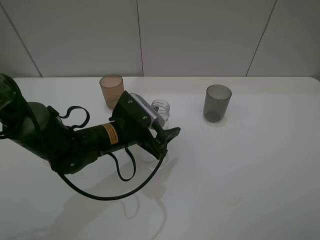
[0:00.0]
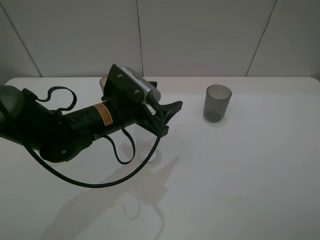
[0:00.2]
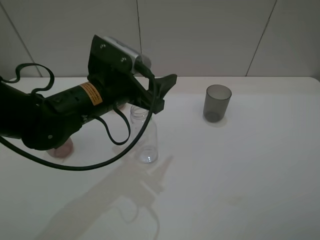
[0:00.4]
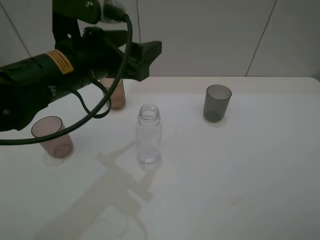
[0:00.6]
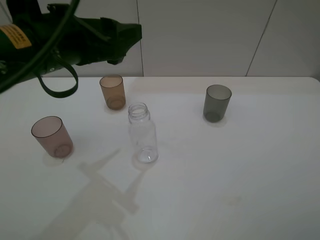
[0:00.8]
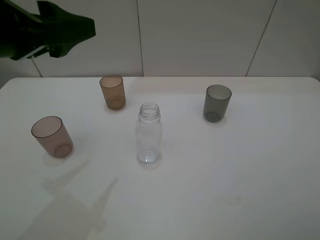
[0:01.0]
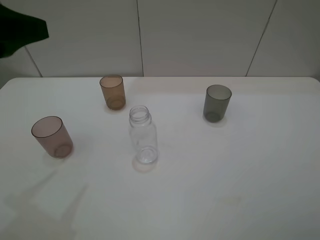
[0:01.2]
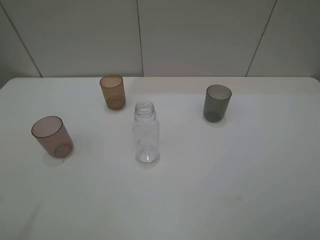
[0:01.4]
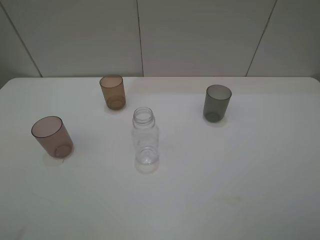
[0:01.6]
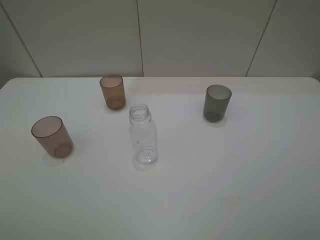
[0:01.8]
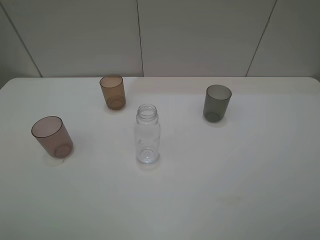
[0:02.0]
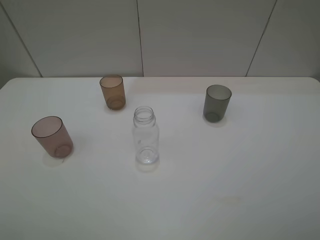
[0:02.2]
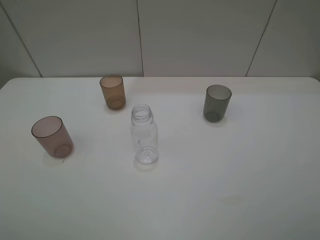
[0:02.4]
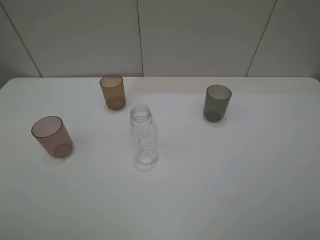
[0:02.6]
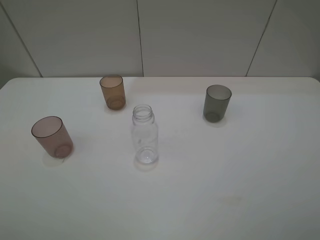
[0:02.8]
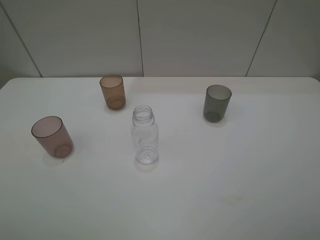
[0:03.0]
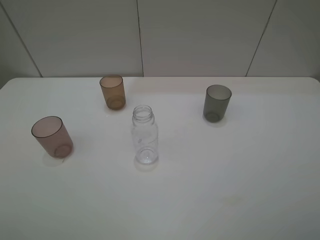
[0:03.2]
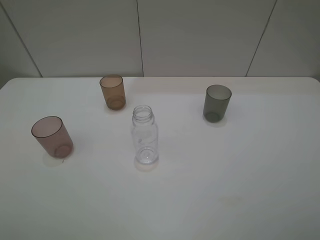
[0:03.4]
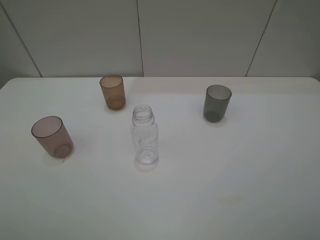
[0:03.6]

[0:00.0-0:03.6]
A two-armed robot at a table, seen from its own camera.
Task of the whole recording: pick up the bottle filled with water and pour water into the middle cup of the three cups.
0.0 to 1.8 s: The left gripper travels to the left, backward and upward by some 35 cm.

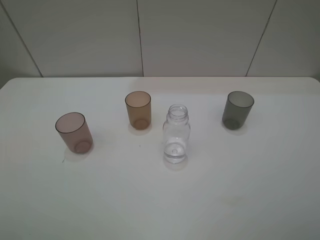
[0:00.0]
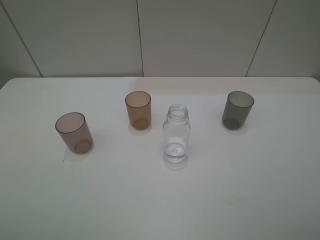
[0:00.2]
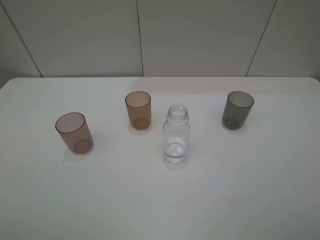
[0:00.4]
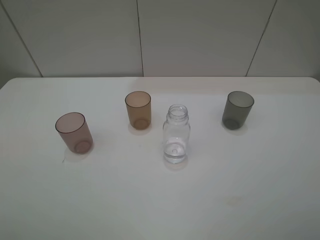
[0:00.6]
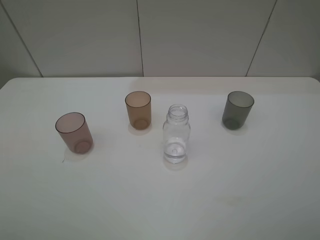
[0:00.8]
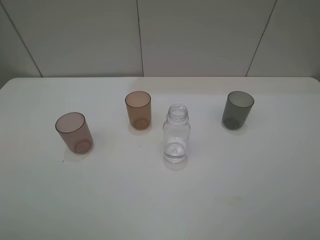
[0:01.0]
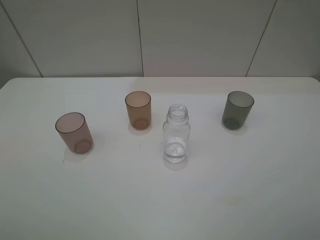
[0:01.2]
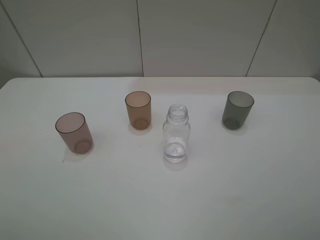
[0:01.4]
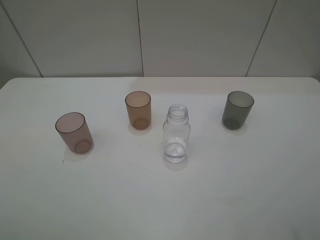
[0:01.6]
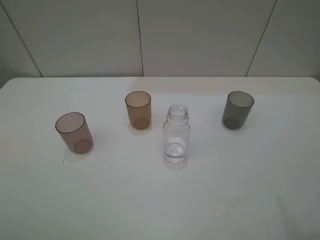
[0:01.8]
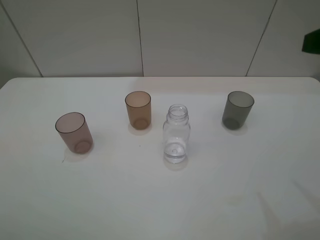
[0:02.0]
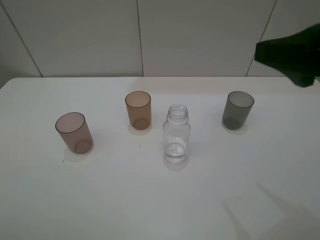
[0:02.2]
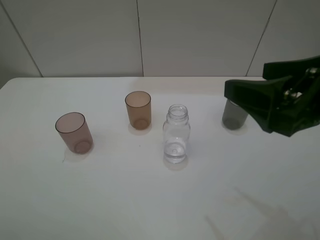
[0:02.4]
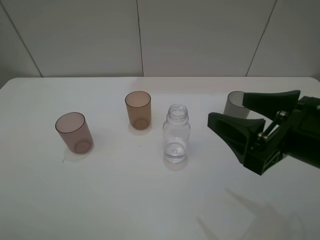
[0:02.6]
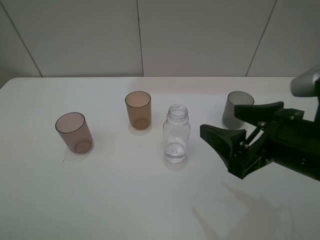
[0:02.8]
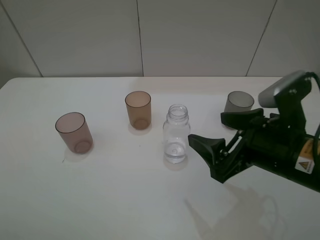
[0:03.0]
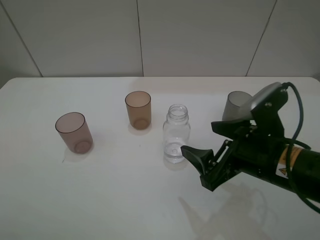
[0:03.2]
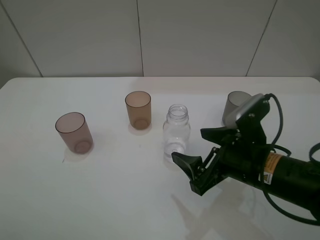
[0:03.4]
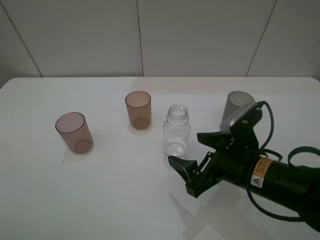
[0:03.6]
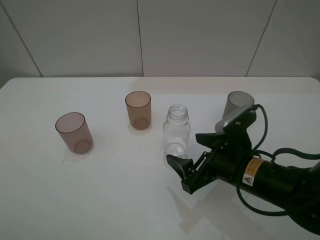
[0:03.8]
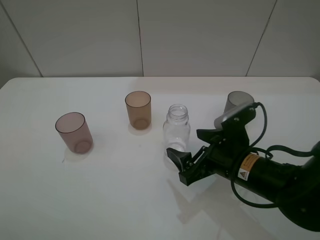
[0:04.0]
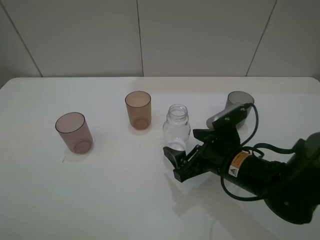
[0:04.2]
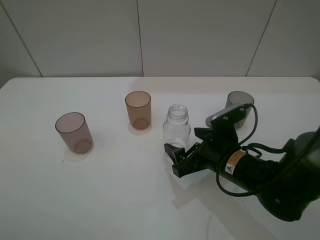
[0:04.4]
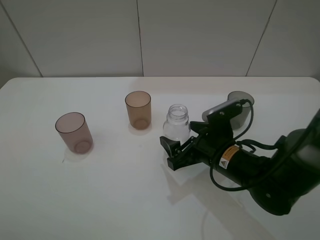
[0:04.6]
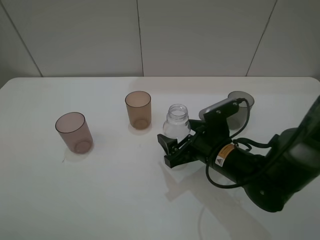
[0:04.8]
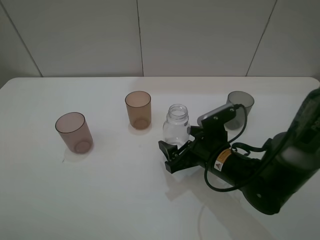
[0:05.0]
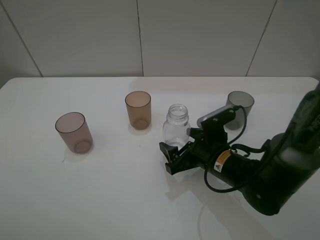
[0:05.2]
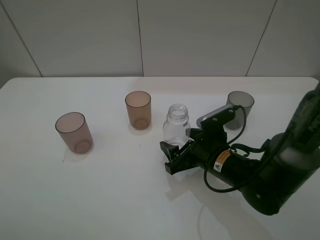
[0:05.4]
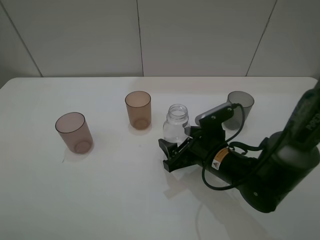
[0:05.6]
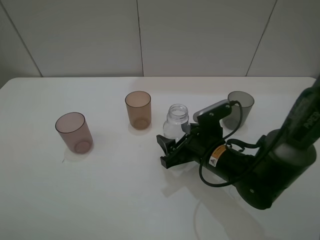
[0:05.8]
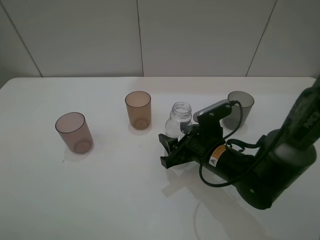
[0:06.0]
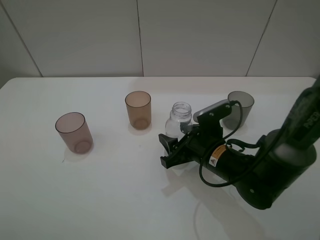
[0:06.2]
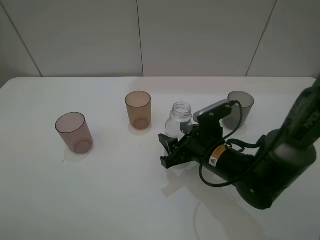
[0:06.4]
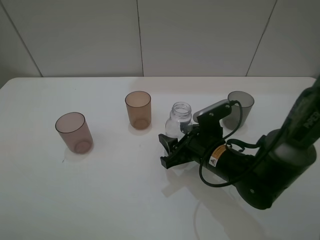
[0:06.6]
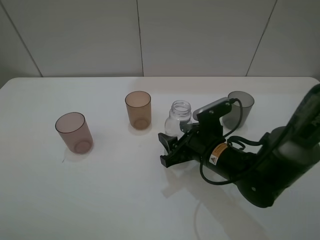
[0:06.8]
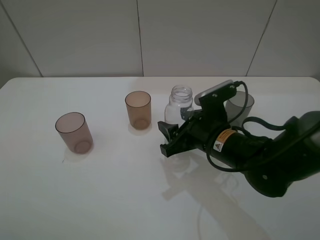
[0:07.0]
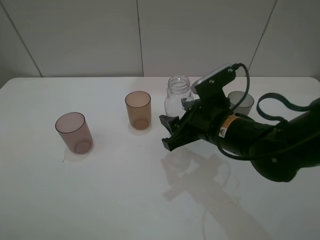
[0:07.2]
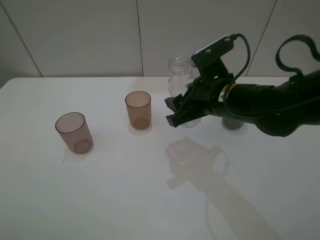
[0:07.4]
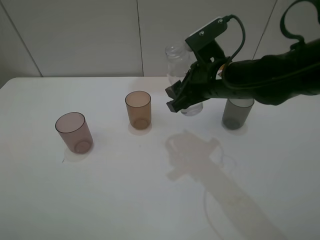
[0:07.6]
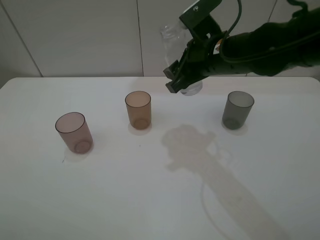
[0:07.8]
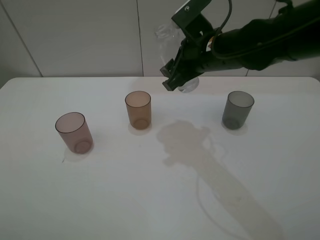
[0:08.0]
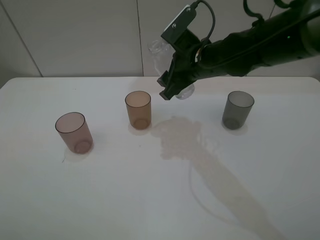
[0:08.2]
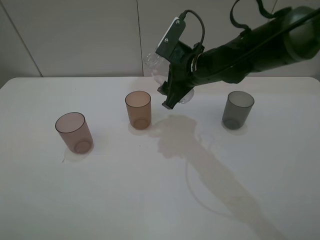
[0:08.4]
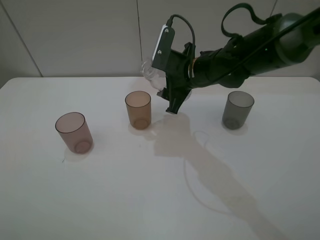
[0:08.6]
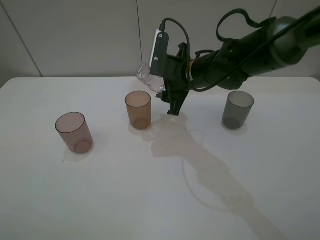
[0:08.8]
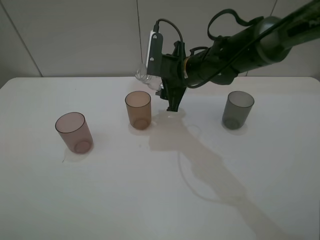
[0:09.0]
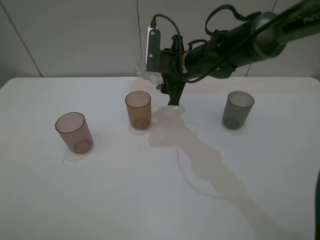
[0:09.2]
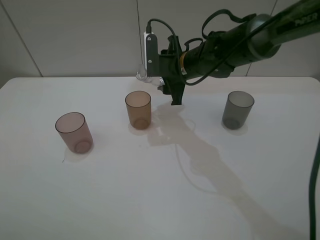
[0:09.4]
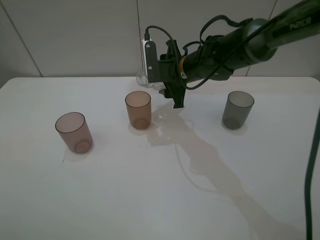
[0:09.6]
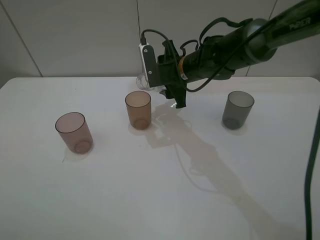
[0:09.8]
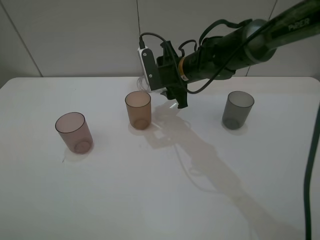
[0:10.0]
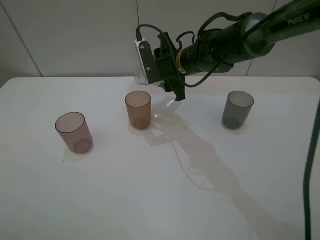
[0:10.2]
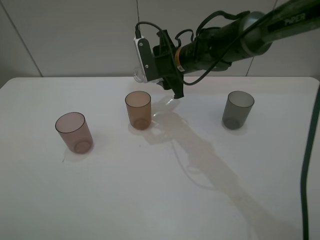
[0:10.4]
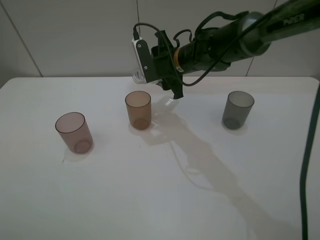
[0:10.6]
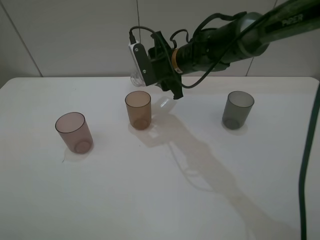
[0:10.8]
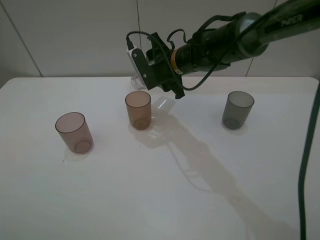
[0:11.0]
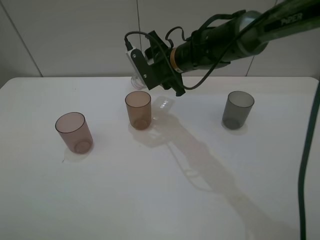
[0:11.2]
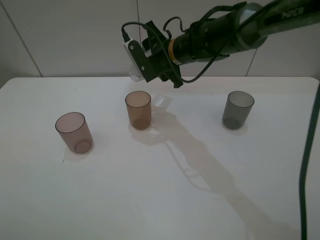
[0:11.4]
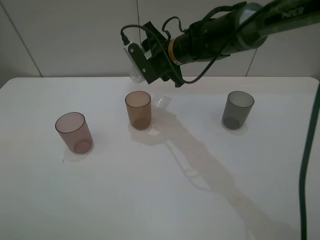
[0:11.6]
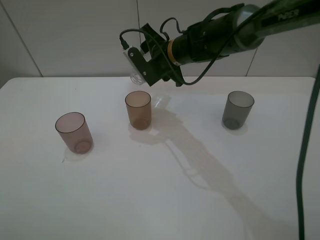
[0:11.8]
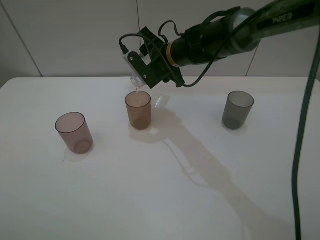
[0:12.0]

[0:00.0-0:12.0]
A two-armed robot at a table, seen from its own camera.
Task of the whole recording: pick up the bottle filled with water and pour water into the middle cup of the three cups.
Step, 0.0 to 6.0 s: Grasp the transparent bottle with the right gripper.
Step, 6.2 to 10.0 s: Pour water from transparent bottle tobrown cup with the right gripper.
1.6 to 3.0 s: The right gripper shifts approximately 20 cm downward, to the left and forward.
3.0 to 4.4 s: The right gripper heads downward and forward, covering some 10 cm.
4.4 to 6.0 s: The right gripper closes up.
6.0 to 7.6 s: The right gripper is displaced upward and forward by roughly 15 cm.
7.6 to 9.0 s: The right gripper shifts approximately 10 cm forward.

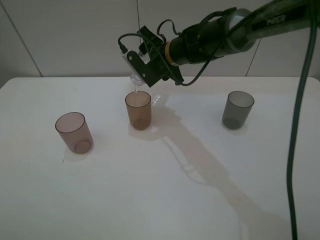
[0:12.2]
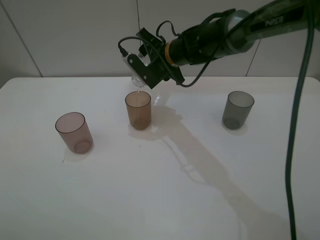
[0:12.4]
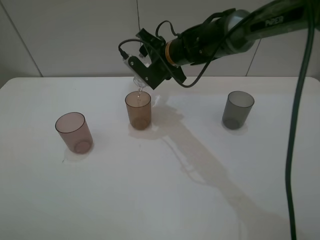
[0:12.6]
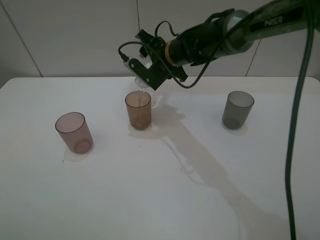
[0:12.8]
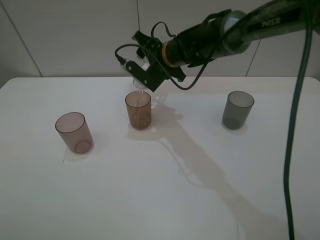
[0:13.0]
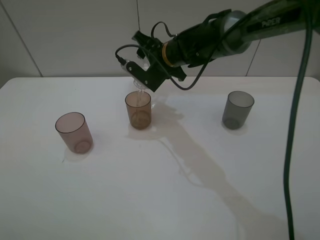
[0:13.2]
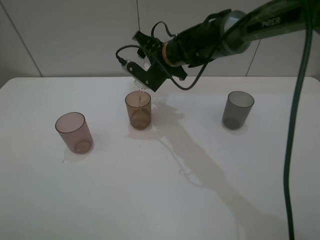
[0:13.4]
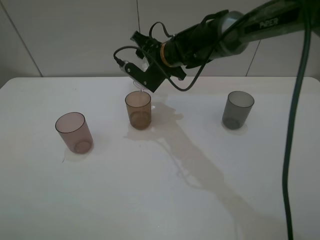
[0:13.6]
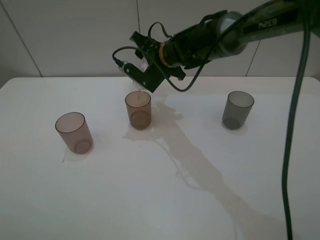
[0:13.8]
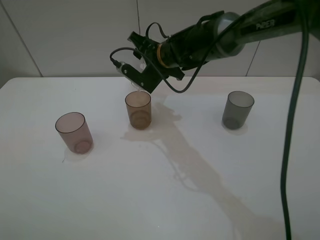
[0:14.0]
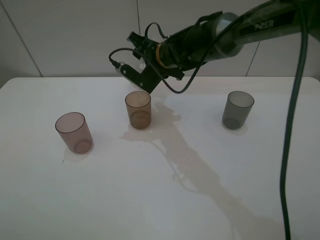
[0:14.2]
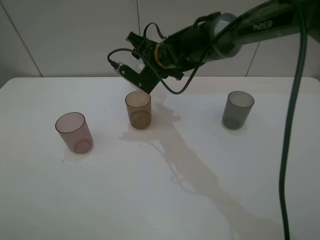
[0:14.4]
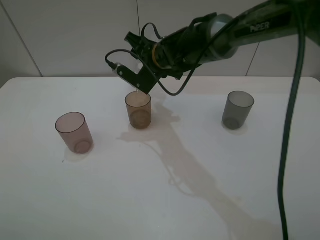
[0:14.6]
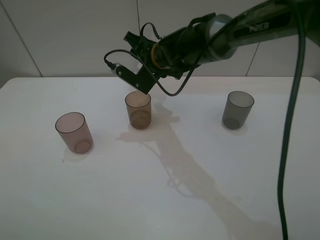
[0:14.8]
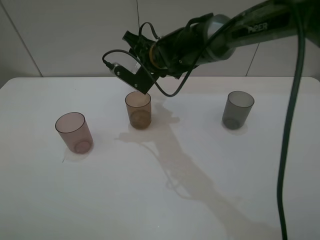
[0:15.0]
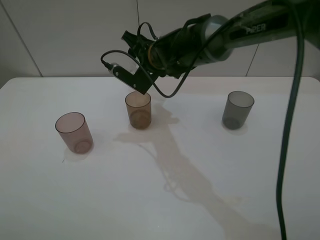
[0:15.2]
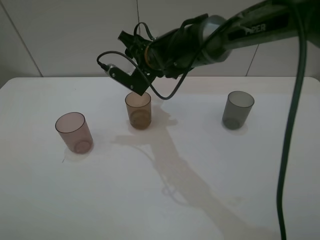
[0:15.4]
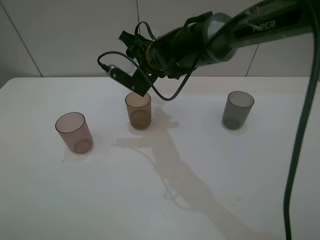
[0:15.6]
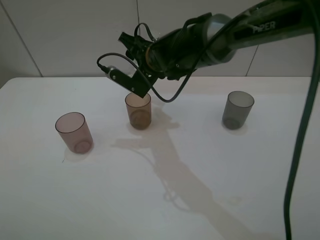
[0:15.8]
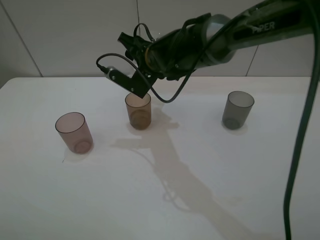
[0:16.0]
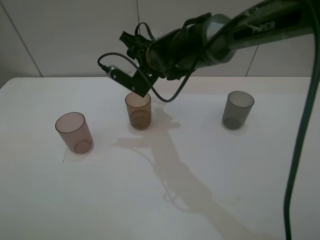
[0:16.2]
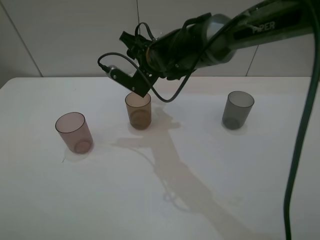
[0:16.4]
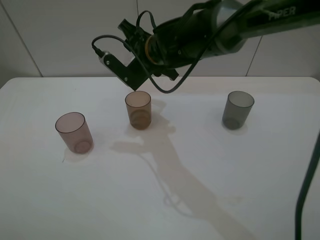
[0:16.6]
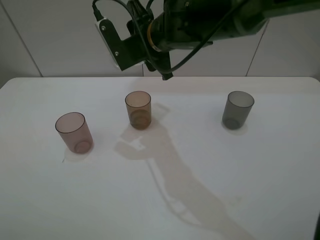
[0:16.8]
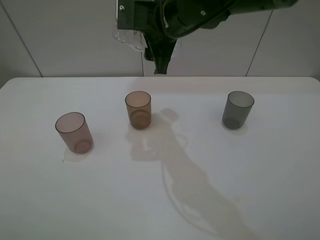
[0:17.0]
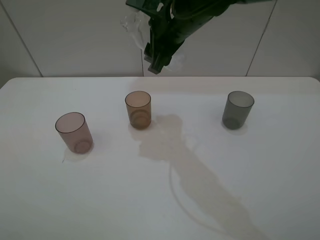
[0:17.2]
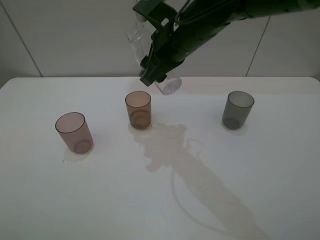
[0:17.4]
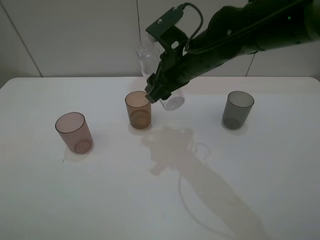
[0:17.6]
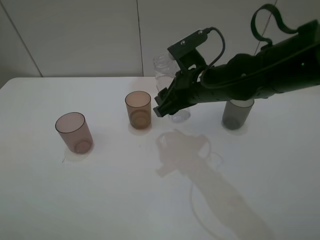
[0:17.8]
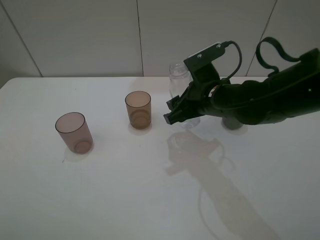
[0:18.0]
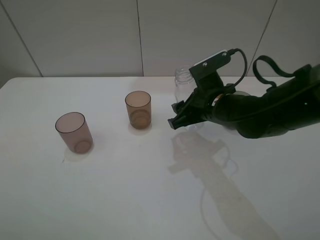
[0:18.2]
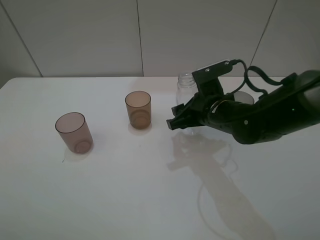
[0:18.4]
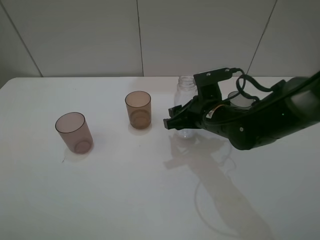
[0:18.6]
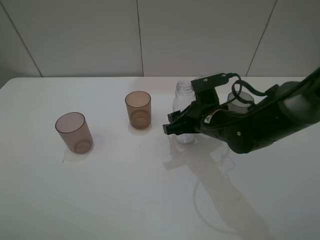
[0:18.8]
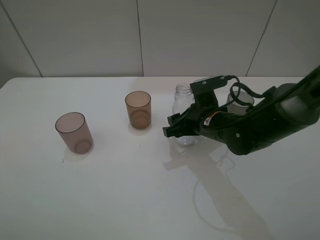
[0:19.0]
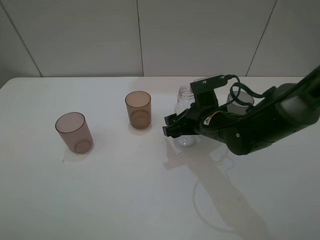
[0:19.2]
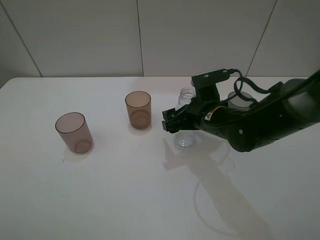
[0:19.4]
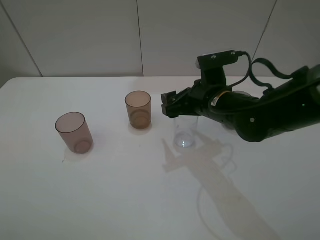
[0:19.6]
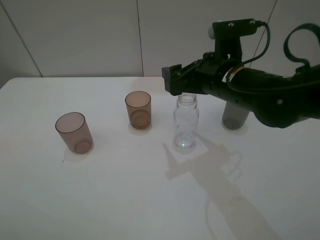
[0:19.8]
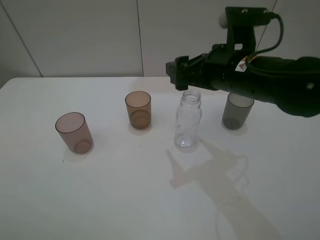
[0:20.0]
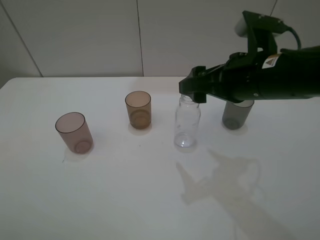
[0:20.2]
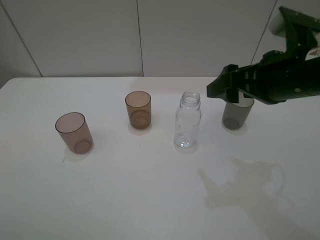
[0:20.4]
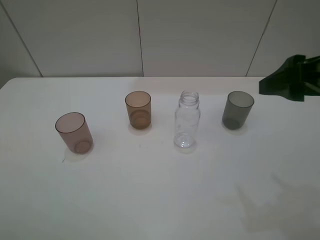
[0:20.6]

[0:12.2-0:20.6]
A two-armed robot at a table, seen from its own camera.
Task of the whole recording: pick up the bottle filled with water and pour water into the middle cup of the three cups.
Step, 12.2 to 20.0 s: Place the transparent bottle with the right gripper.
12.2 to 15.0 s: The grippers move only a little.
15.0 to 16.4 s: The grippers stay close to where they were, moving slightly.
16.4 to 17.8 s: The right gripper goes some 15 cm backward and to the right, and moves about 10 cm upward and comes back.
17.8 to 19.2 s: The right gripper travels downward by roughly 5 cm, and opens.
19.2 to 20.6 s: The right gripper shifts roughly 30 cm upward, to the right and backward.
